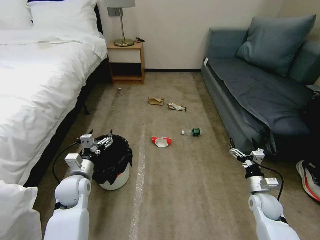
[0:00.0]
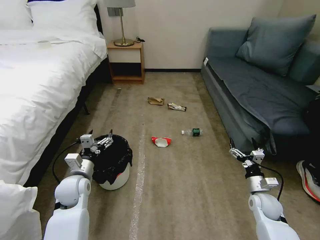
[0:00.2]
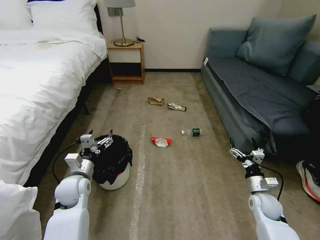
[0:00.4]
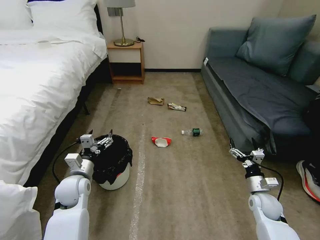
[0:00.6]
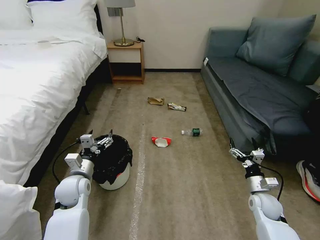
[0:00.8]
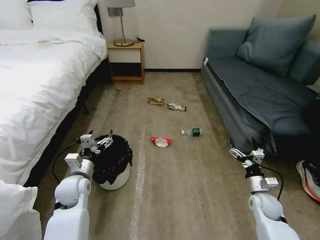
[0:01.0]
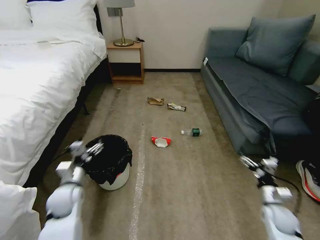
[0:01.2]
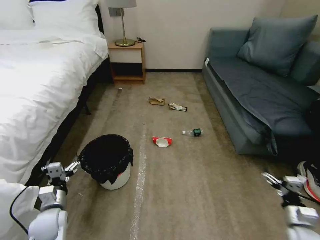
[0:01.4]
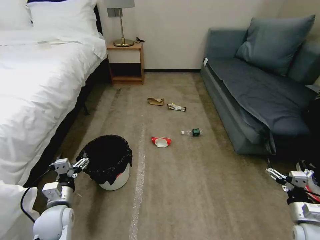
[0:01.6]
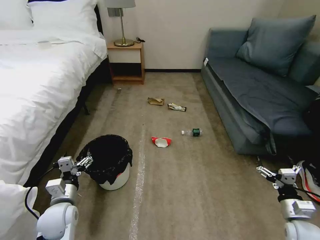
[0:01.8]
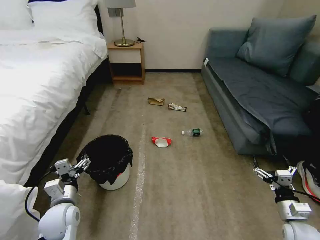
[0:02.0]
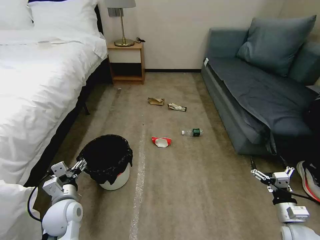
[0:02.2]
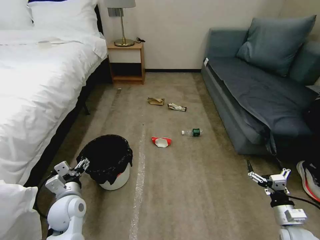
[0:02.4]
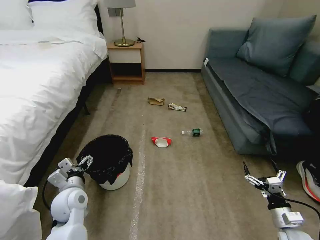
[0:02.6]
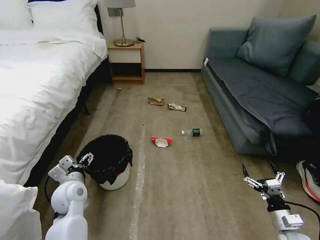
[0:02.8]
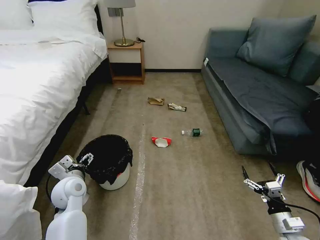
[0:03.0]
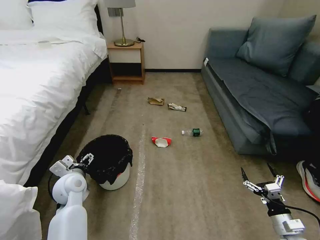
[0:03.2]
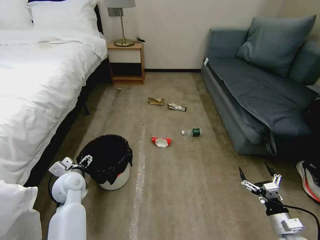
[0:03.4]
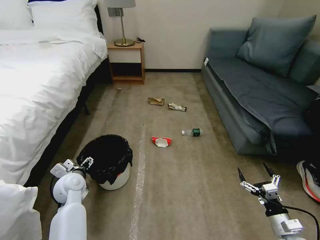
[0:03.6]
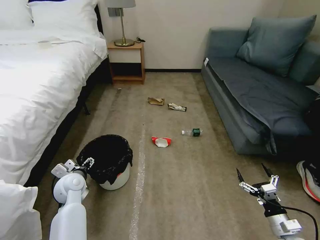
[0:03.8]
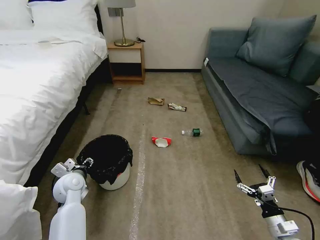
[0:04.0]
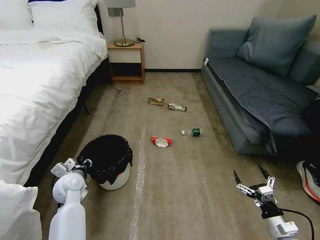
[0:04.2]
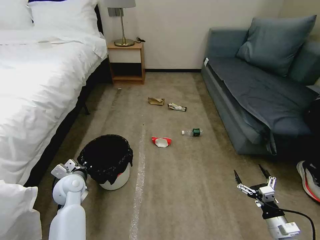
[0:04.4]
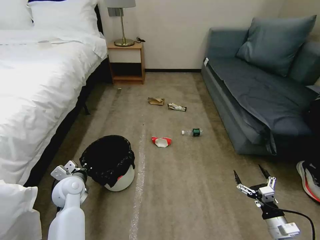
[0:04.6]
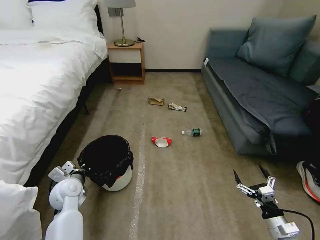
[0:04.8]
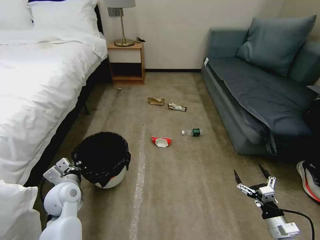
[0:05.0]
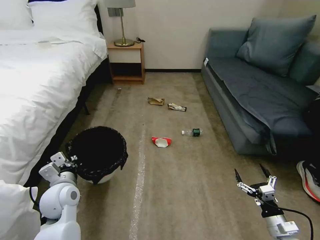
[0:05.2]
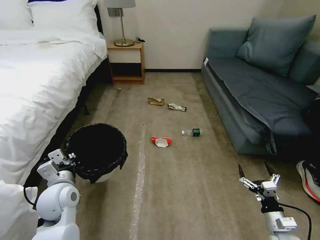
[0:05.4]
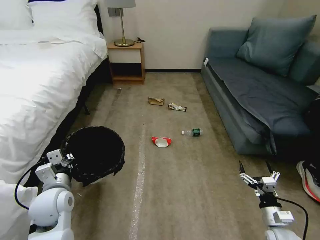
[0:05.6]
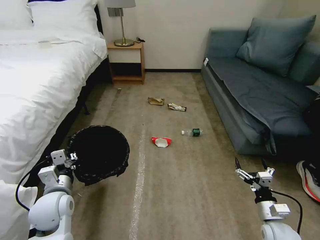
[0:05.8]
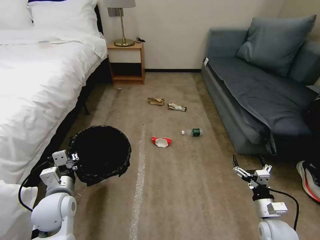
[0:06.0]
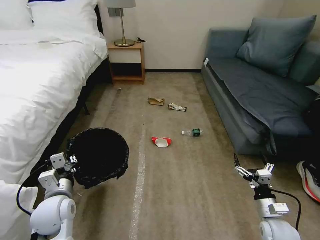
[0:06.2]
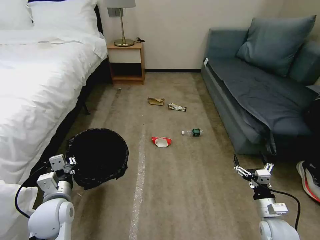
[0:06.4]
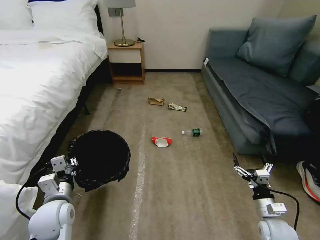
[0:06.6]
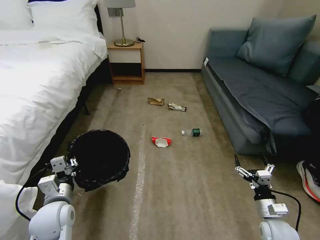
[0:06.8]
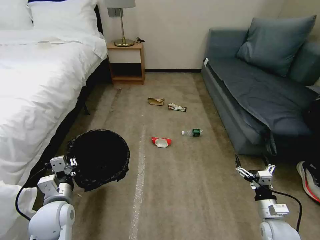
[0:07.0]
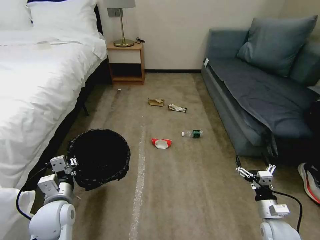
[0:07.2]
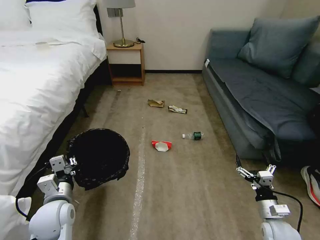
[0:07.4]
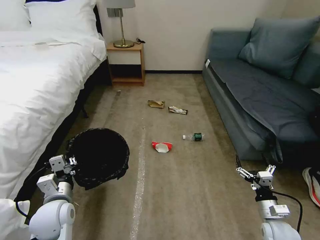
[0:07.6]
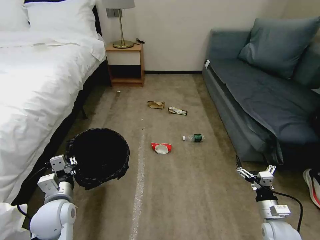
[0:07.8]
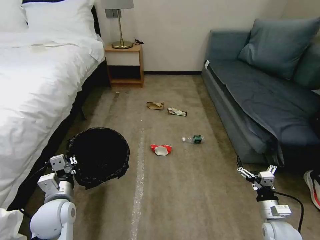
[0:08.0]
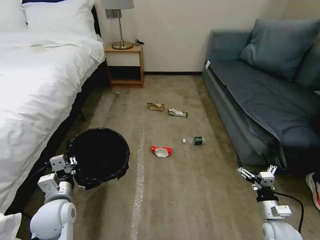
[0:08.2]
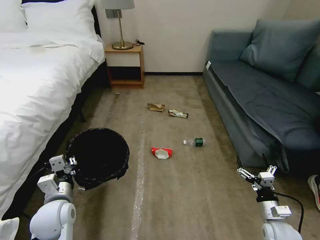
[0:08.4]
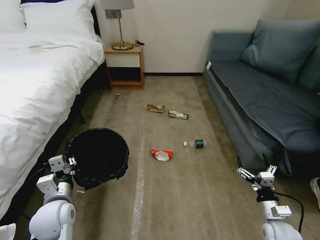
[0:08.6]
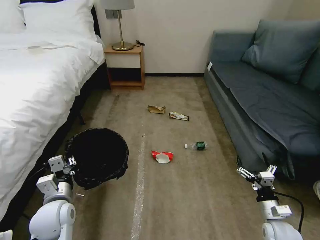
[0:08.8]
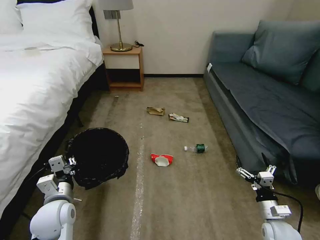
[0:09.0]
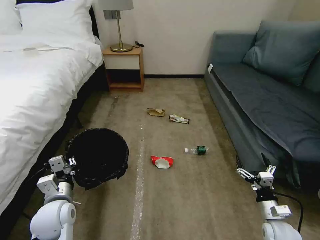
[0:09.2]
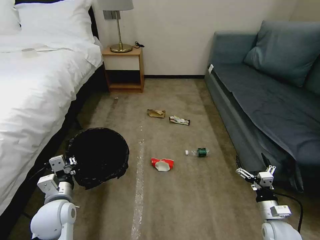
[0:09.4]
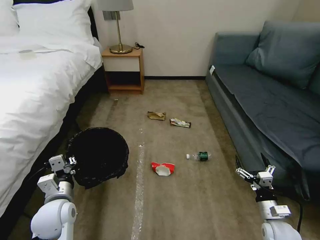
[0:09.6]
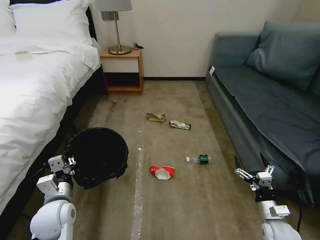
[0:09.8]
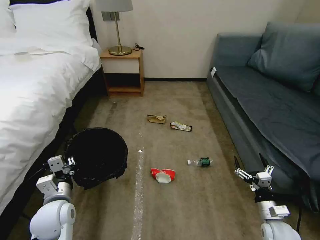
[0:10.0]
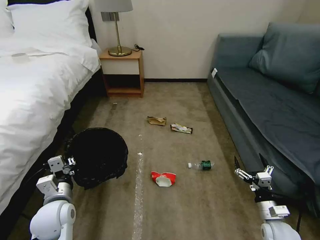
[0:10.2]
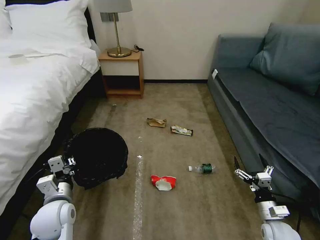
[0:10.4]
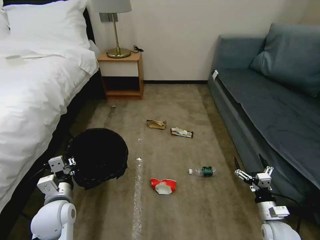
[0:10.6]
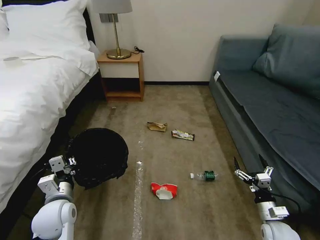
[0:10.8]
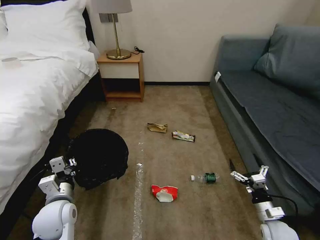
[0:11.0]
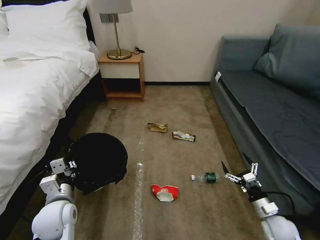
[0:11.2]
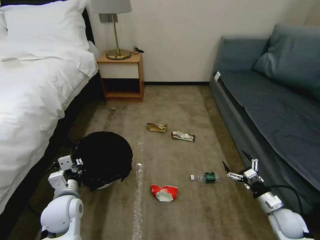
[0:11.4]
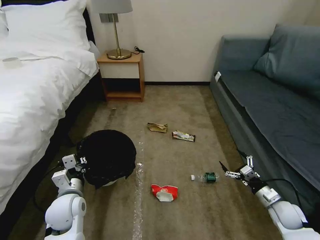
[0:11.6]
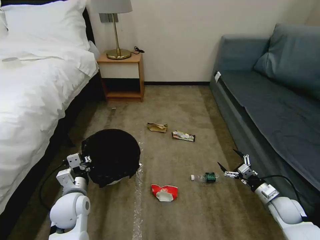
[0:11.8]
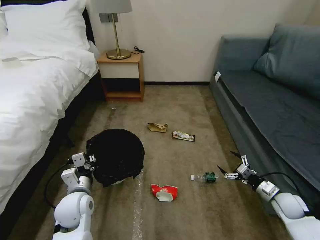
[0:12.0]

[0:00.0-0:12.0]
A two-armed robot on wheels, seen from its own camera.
Task of the whole recording: Pick up the trash bin, then pick up the garbage on the floor and place it into the trash bin.
0:01.6 to 0:03.0: The left gripper moves forward, about 5 cm, while the right gripper moves about 5 cm.
0:03.0 to 0:04.4: The left gripper closes.
0:04.4 to 0:06.0: The left gripper travels backward and upward by some 10 cm, while the right gripper shifts approximately 5 cm forward.
0:06.0 to 0:07.6: The grippers stay close to where they were, moving slightly.
0:07.6 to 0:10.4: Neither gripper changes place.
0:10.4 to 0:12.0: The right gripper is displaced forward and to the right by some 15 cm; the left gripper ends up approximately 5 cm from where it was.

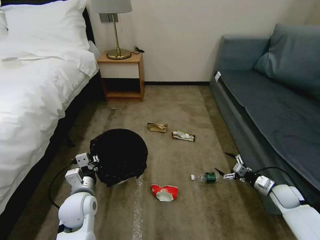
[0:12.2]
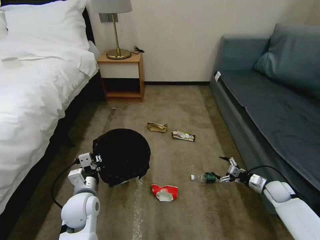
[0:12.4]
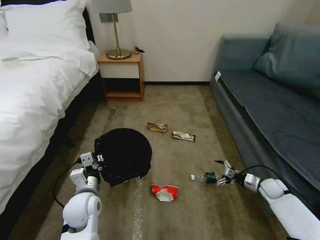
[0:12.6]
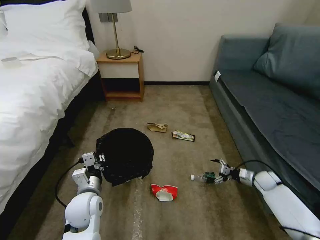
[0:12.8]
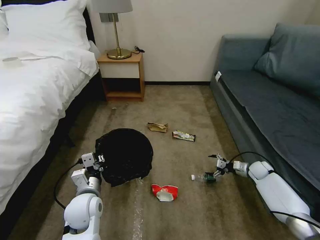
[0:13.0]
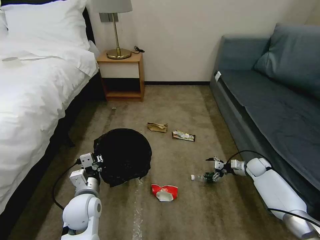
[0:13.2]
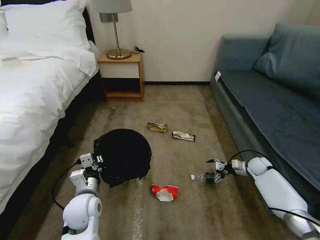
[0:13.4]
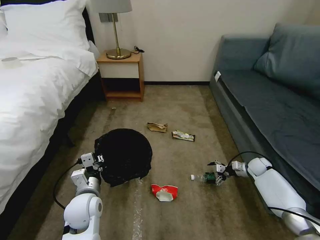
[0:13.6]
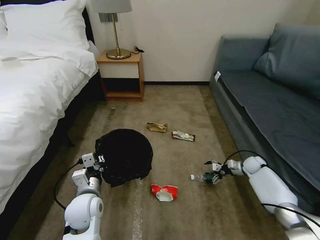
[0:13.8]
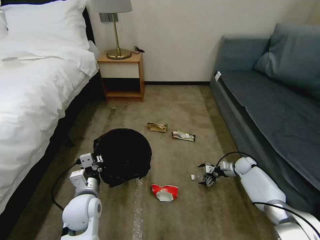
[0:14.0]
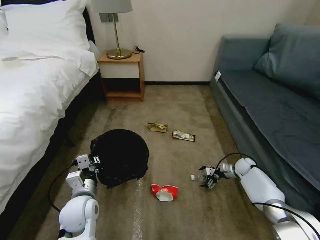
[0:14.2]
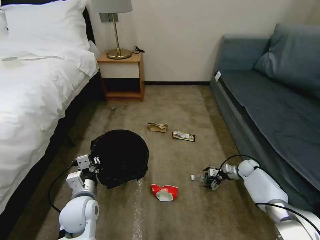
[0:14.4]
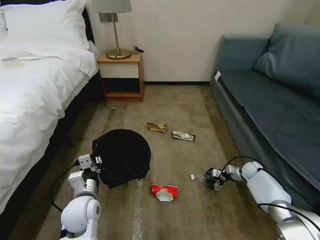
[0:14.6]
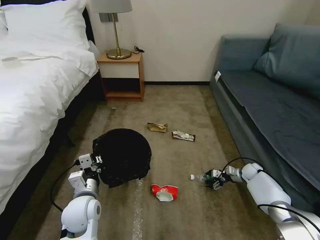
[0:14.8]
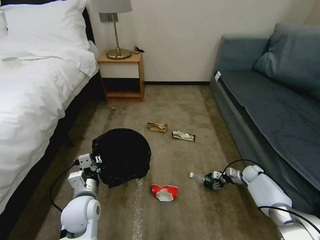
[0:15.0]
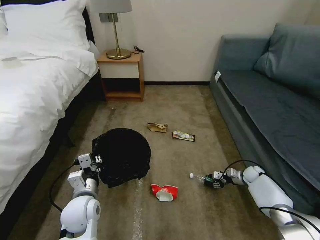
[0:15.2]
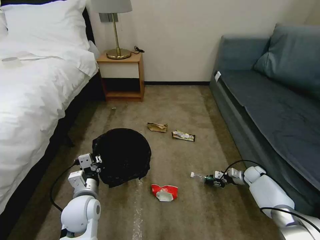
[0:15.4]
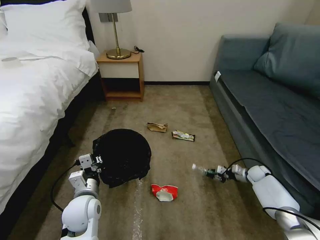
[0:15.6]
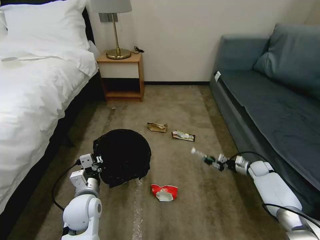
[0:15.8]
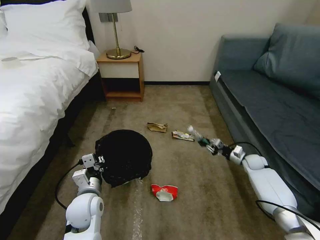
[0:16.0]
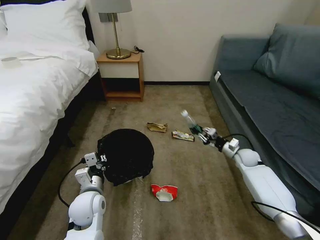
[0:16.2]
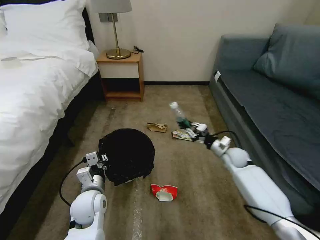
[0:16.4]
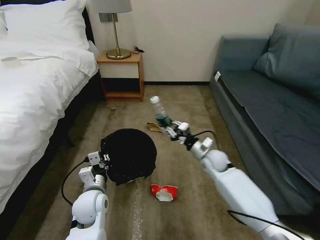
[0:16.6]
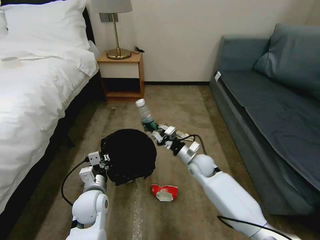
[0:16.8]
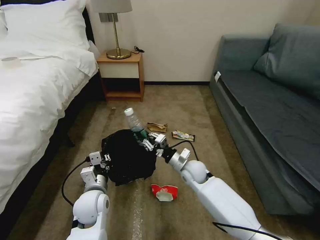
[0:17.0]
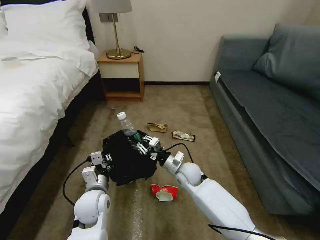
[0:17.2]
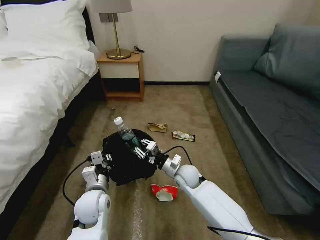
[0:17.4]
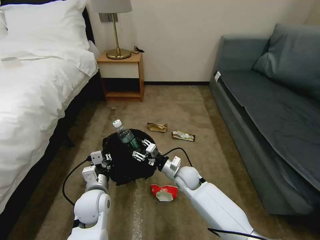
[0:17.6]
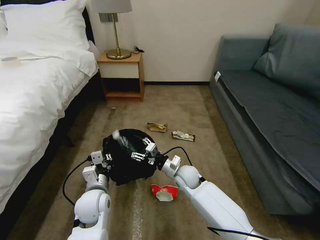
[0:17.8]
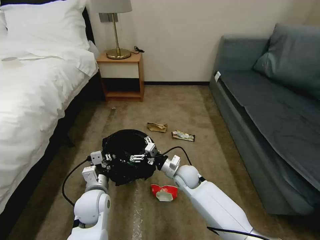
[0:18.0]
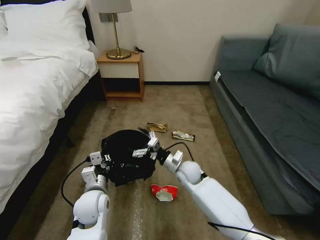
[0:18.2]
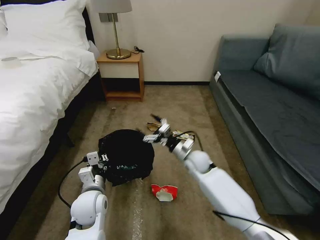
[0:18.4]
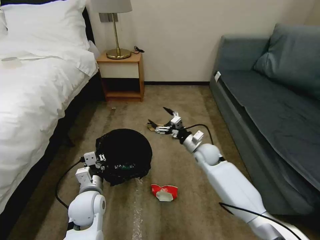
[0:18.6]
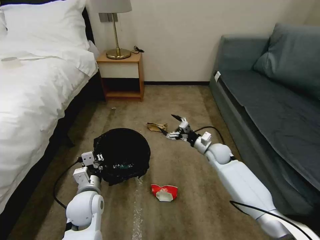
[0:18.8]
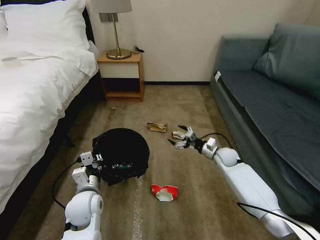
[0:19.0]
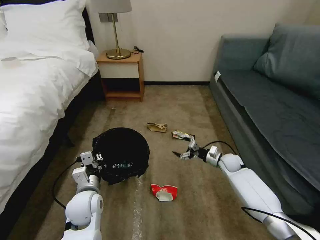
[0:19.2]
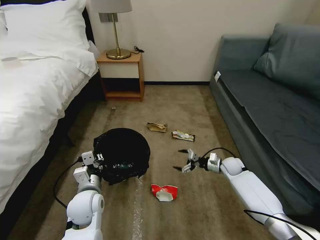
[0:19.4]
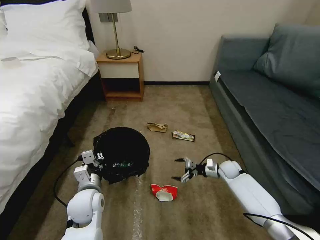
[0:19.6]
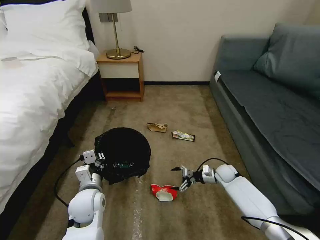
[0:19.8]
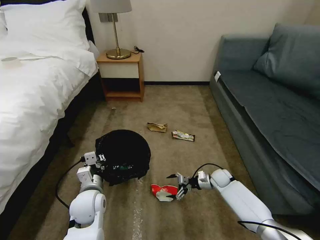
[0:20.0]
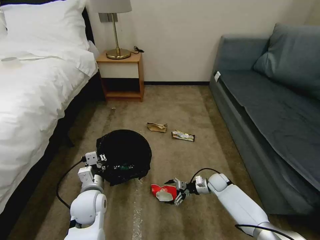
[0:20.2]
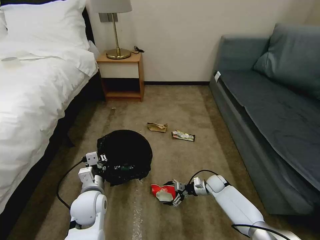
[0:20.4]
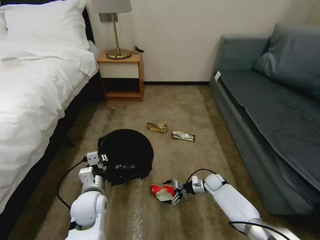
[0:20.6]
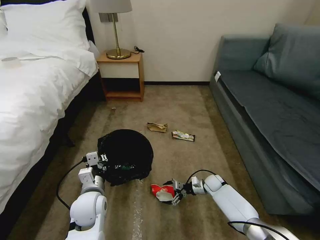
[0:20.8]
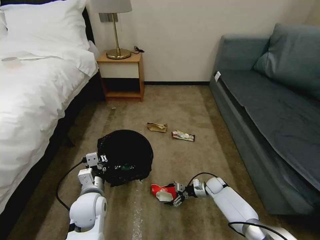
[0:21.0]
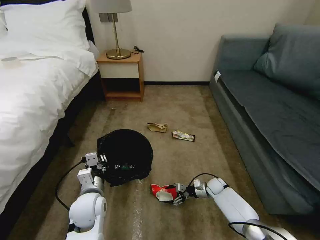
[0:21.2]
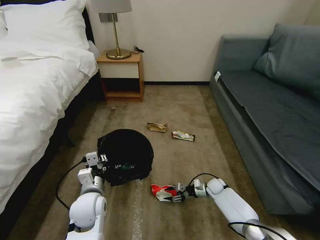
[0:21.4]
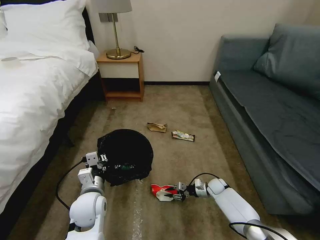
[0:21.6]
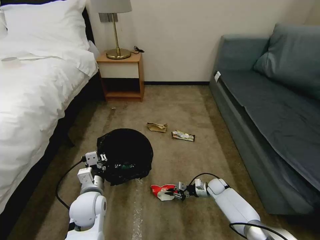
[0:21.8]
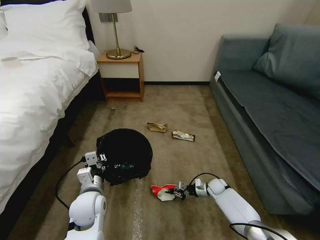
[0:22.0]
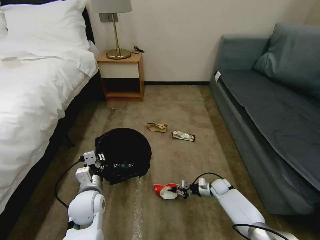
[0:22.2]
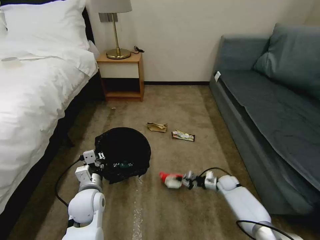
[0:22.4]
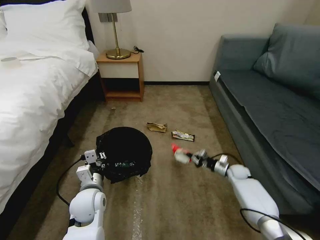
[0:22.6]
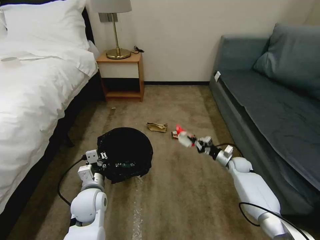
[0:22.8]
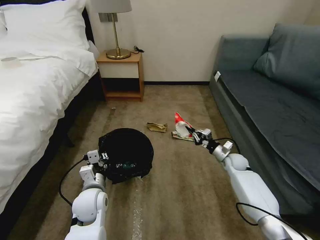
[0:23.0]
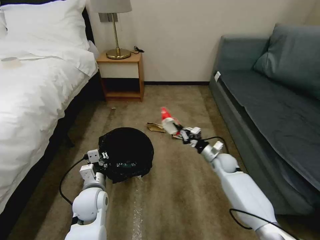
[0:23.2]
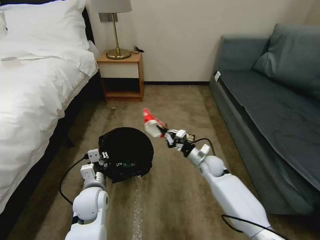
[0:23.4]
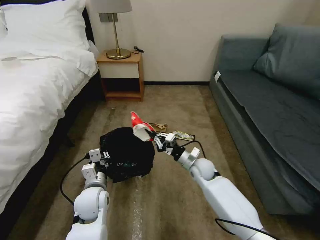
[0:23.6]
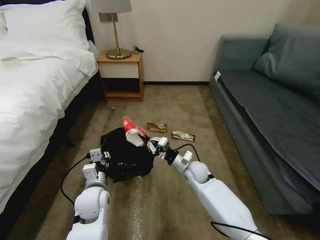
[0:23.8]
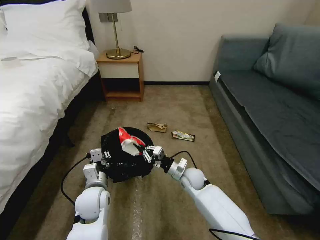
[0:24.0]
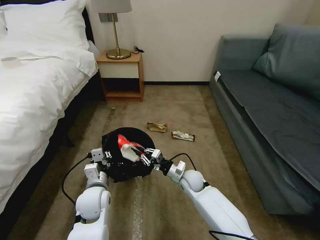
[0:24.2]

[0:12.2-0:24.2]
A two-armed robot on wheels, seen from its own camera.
Task of the whole recording: Pick up the trash bin, then pick up the garbage on the floor and place it into the trash bin.
0:12.2 to 0:13.8: The right gripper goes roughly 15 cm forward.
0:13.8 to 0:15.2: The right gripper travels downward by about 5 cm, and closes its fingers.
0:15.2 to 0:16.6: The right gripper shifts approximately 30 cm to the left and upward.
0:16.6 to 0:18.2: The right gripper travels to the left by some 10 cm, and opens up.
0:18.2 to 0:19.8: The right gripper moves to the right and downward, roughly 20 cm.
0:19.8 to 0:21.2: The right gripper travels downward by some 10 cm.
0:21.2 to 0:22.6: The right gripper goes approximately 10 cm to the right and upward, and closes up.
0:22.6 to 0:24.2: The right gripper heads to the left, covering approximately 25 cm.
